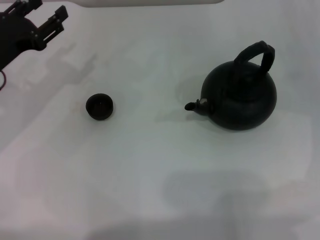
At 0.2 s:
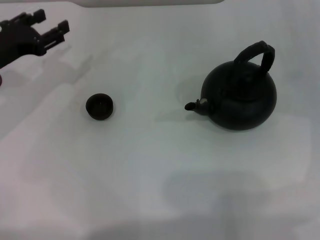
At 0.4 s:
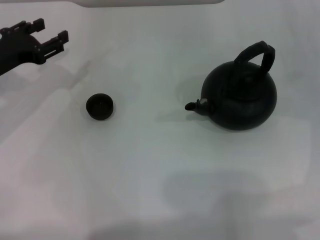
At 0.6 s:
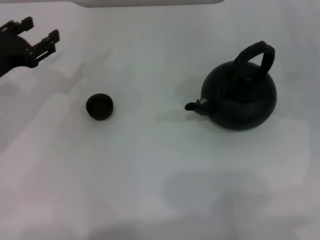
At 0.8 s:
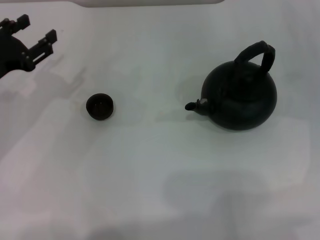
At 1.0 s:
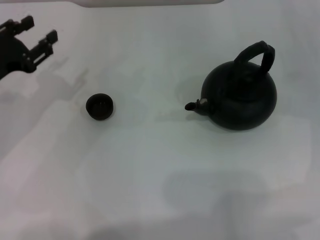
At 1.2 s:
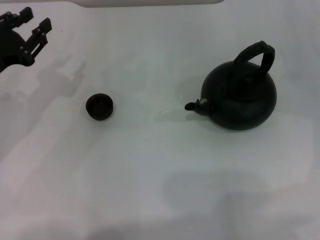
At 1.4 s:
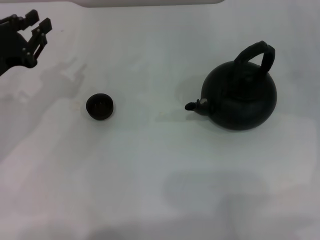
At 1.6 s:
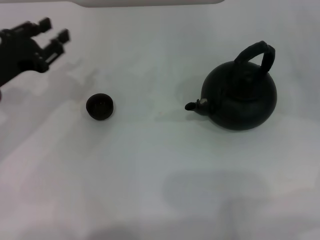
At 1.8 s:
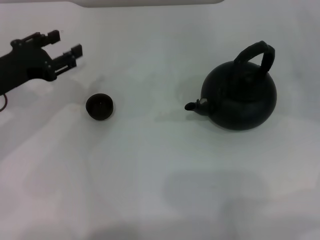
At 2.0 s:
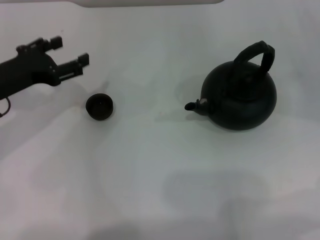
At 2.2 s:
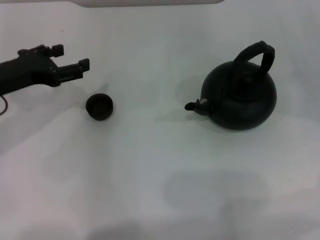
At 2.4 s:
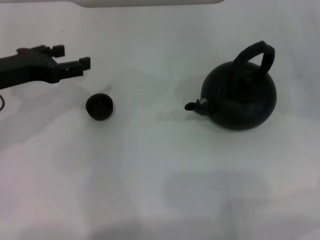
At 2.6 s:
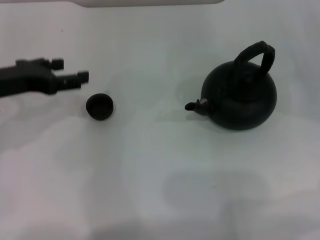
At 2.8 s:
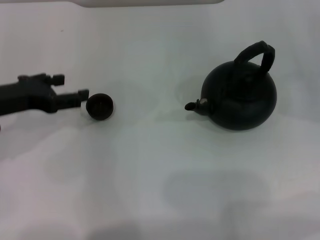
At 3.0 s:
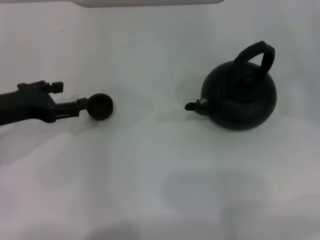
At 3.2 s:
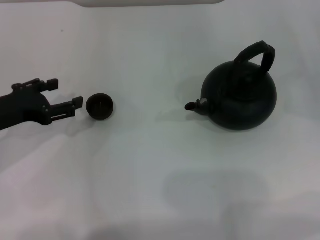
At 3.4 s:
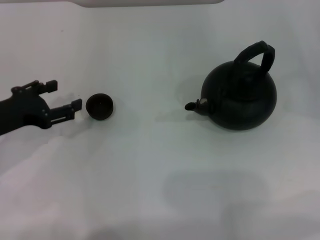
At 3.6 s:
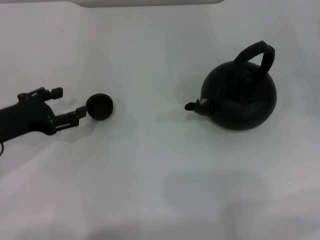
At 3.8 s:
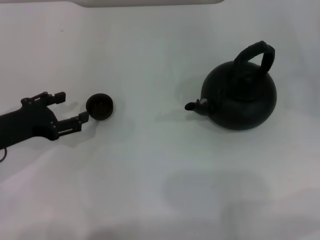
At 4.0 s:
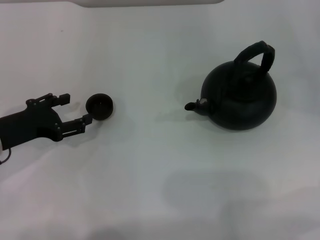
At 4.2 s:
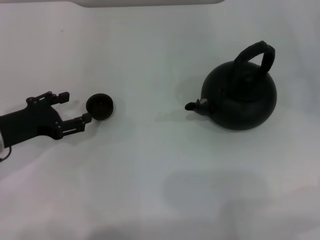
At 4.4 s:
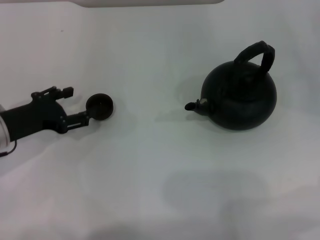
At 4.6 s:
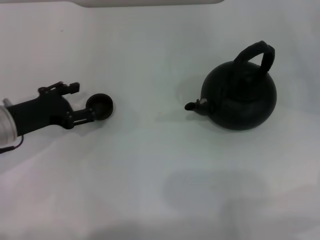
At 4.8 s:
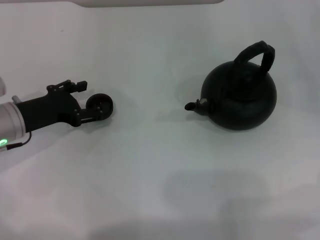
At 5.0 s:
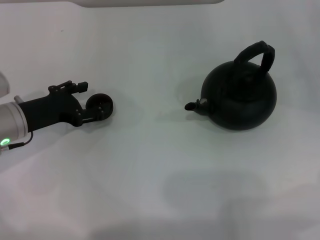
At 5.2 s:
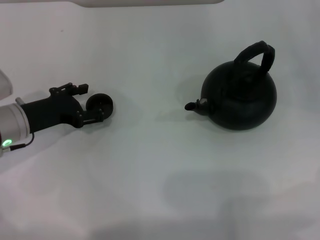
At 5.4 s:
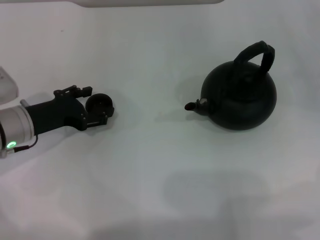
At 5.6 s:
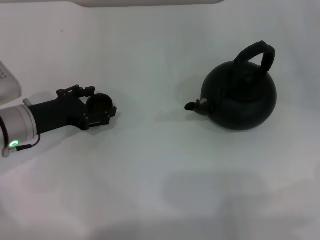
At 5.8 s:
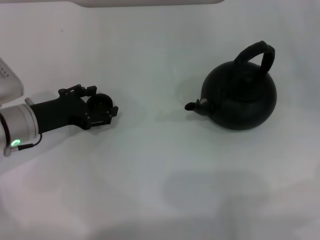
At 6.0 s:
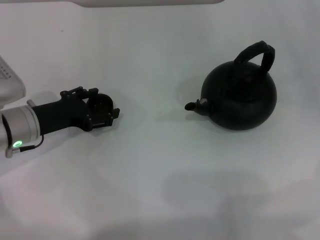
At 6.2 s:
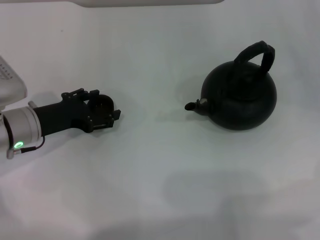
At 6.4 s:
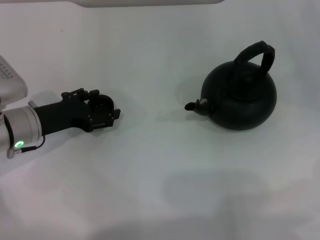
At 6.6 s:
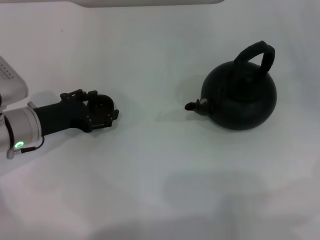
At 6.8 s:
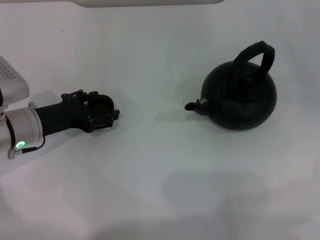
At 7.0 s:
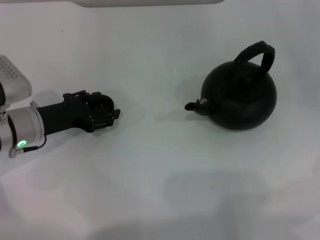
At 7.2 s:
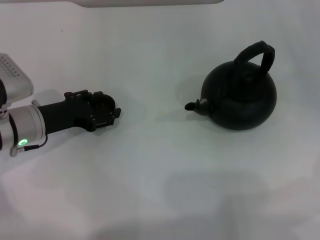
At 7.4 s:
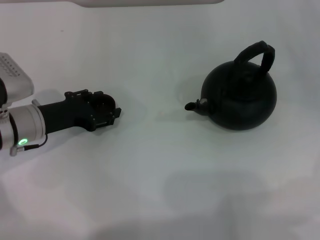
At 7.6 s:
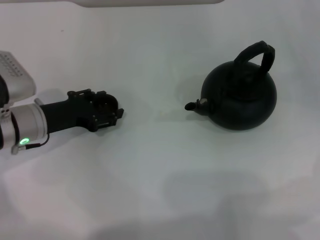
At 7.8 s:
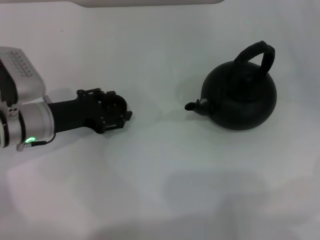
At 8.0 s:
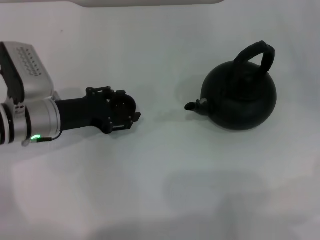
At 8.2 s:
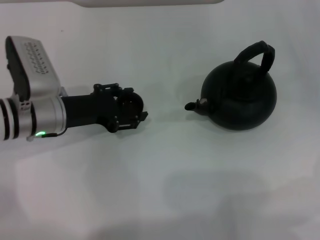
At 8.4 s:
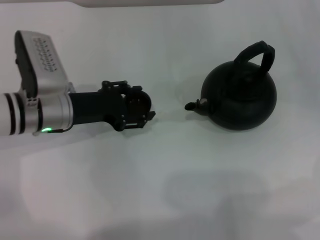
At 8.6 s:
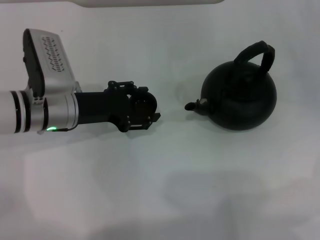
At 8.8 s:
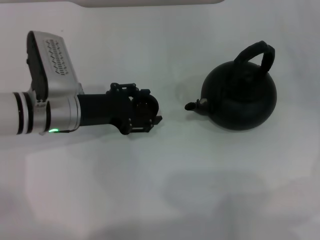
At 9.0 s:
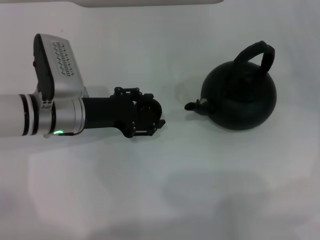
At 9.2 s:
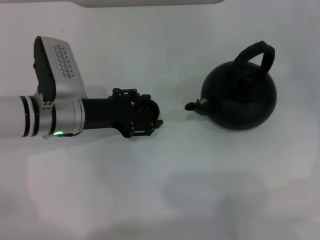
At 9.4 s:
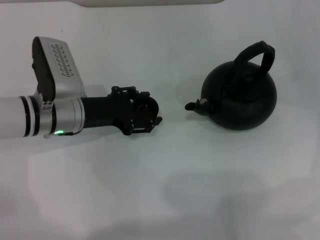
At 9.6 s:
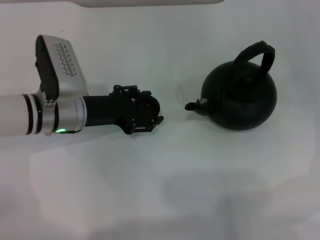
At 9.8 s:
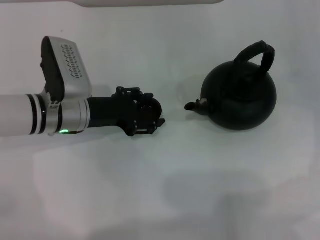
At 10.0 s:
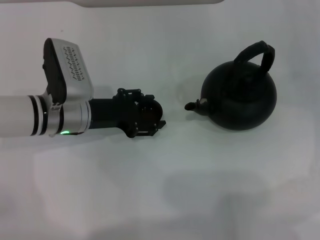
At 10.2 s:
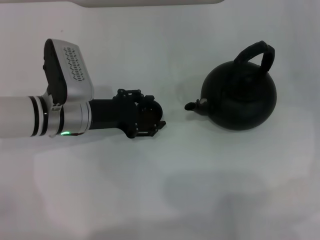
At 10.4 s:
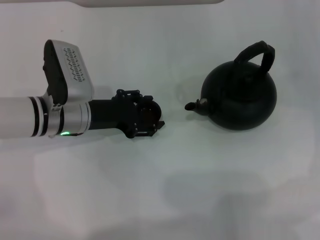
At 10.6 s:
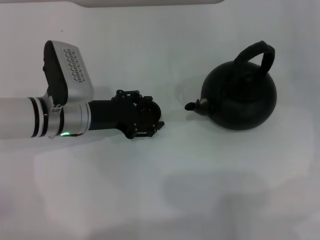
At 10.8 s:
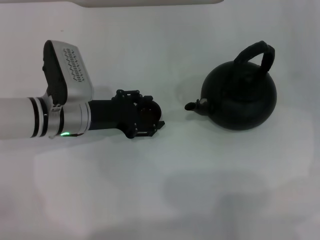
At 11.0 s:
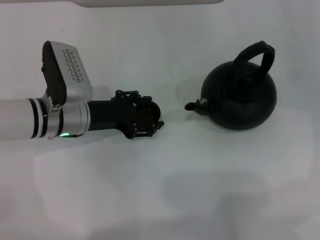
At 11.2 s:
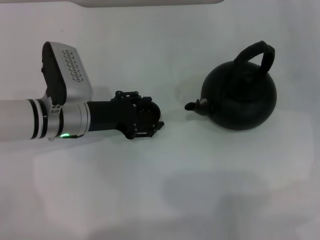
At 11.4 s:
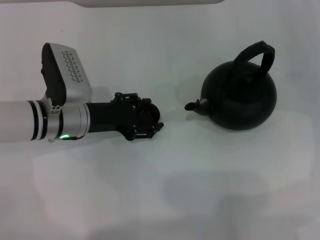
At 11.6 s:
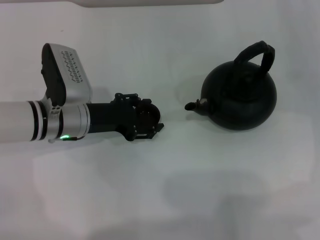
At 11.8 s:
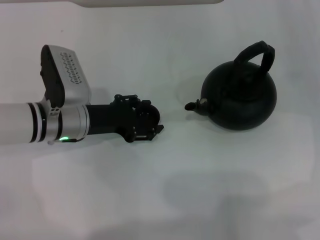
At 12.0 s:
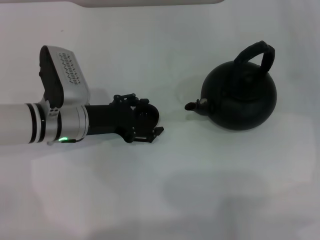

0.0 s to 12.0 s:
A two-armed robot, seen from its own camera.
Task of the whole recording: Grasp the handle of the teapot with one hand and pour tea into the teacup.
Step, 0.0 to 8.2 s: Pick up the teacup with the left gripper.
0.0 to 1.6 s: The left gripper closes.
1.6 to 3.0 s: The left gripper opens its fingers.
3.0 to 4.4 s: The left gripper travels downward by approximately 5 cm.
4.4 to 6.0 s: There are only small adjustments of the grippers.
6.0 to 7.6 s: The left gripper closes its fingers.
7.6 to 9.0 s: The left gripper shifts roughly 5 cm to the right.
9.0 to 10.4 s: The grippers make only small movements.
10.4 to 12.0 s: The two grippers keep their place.

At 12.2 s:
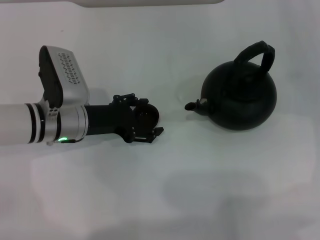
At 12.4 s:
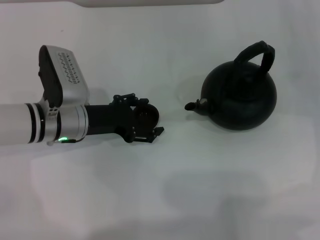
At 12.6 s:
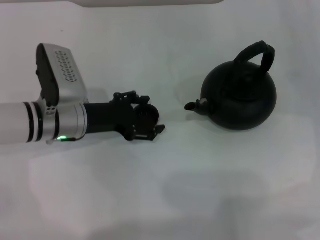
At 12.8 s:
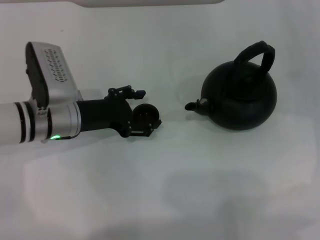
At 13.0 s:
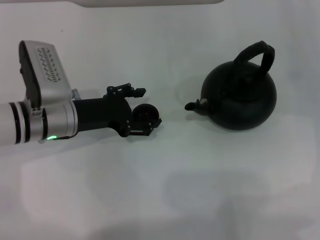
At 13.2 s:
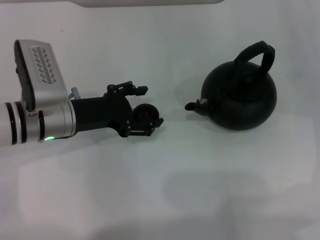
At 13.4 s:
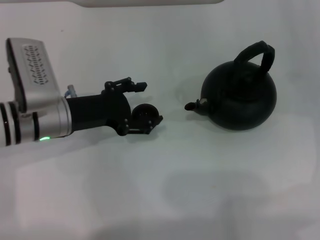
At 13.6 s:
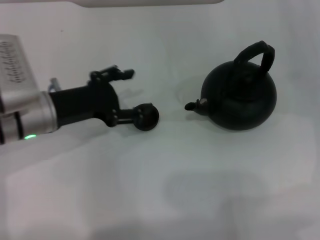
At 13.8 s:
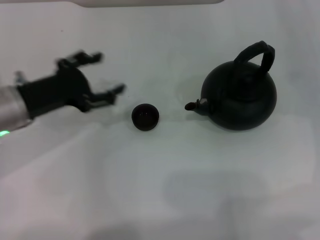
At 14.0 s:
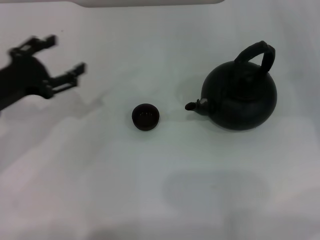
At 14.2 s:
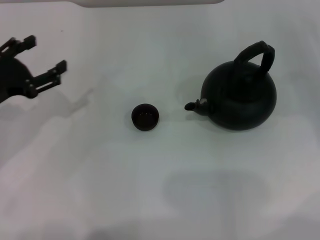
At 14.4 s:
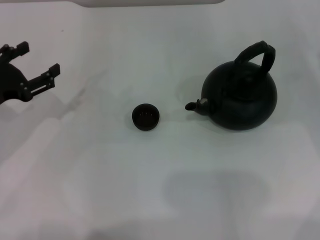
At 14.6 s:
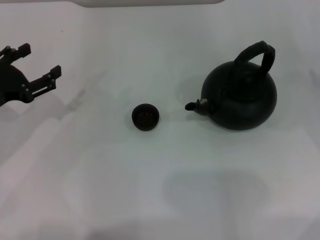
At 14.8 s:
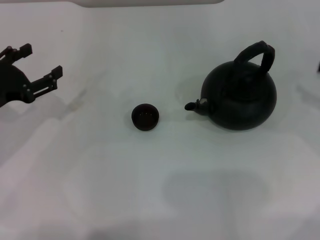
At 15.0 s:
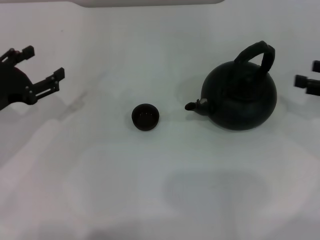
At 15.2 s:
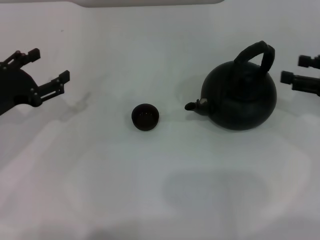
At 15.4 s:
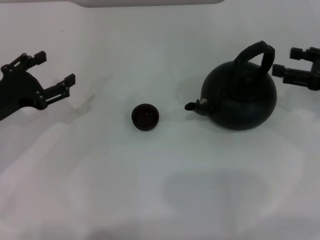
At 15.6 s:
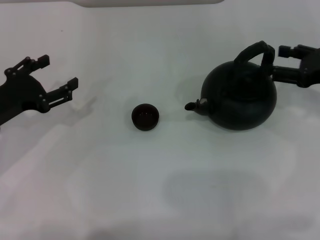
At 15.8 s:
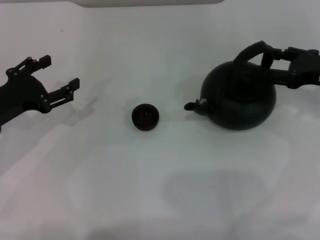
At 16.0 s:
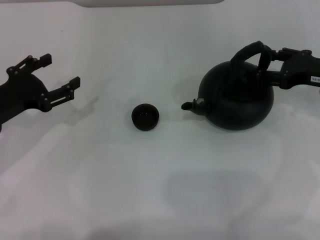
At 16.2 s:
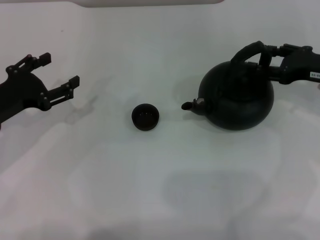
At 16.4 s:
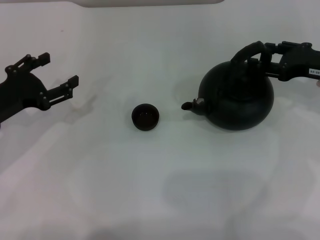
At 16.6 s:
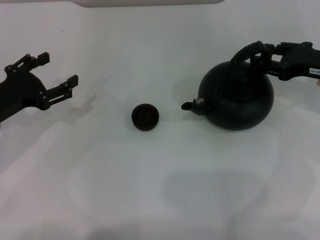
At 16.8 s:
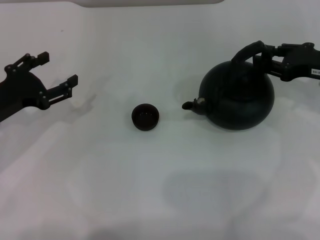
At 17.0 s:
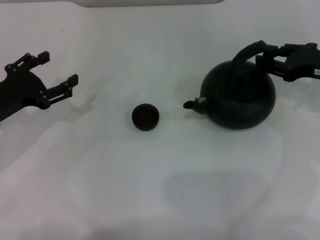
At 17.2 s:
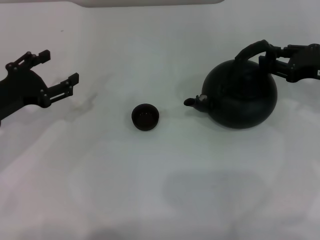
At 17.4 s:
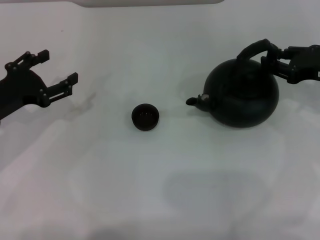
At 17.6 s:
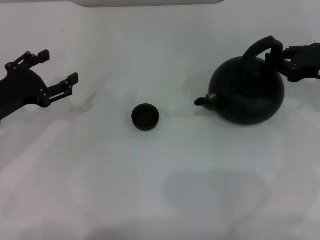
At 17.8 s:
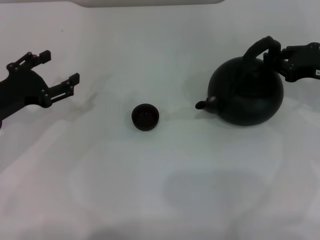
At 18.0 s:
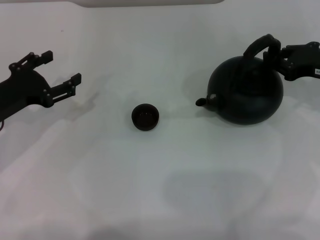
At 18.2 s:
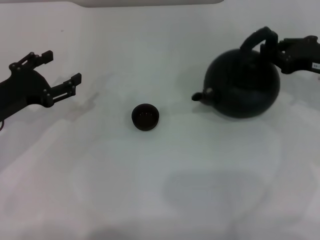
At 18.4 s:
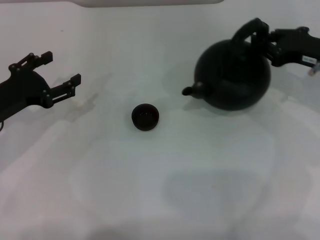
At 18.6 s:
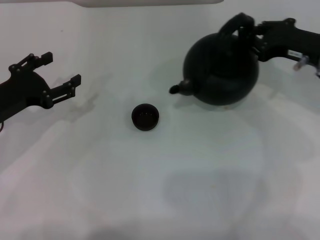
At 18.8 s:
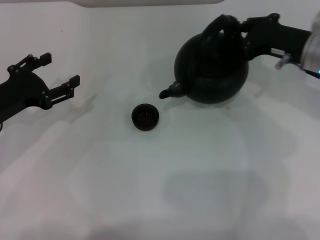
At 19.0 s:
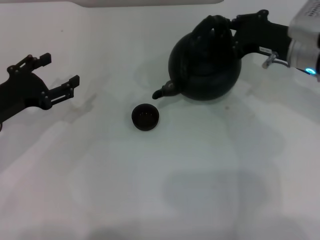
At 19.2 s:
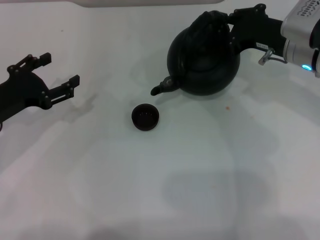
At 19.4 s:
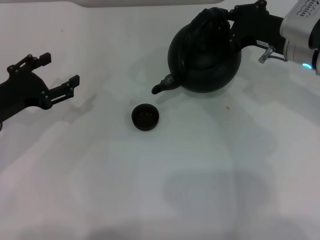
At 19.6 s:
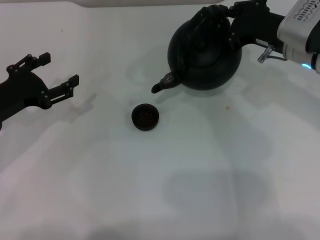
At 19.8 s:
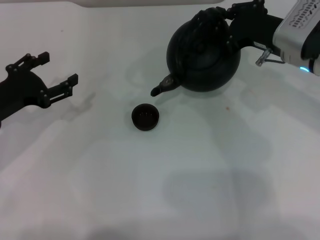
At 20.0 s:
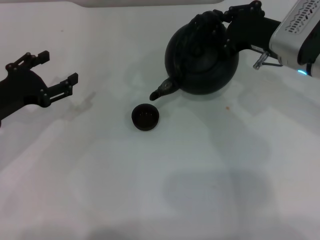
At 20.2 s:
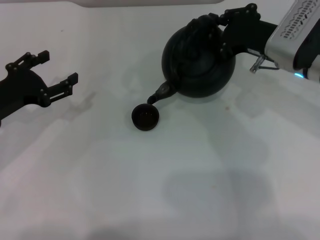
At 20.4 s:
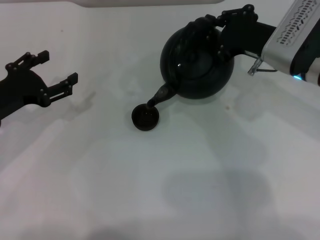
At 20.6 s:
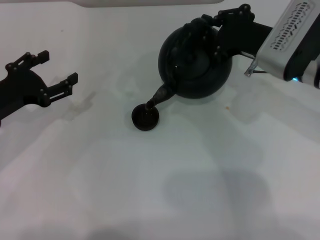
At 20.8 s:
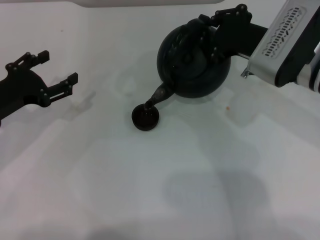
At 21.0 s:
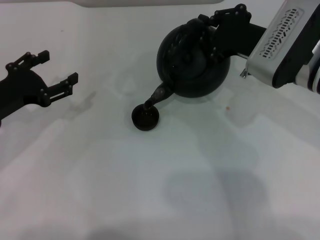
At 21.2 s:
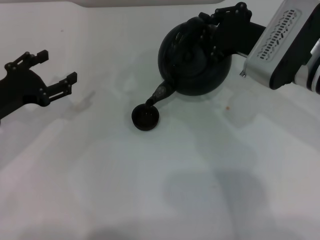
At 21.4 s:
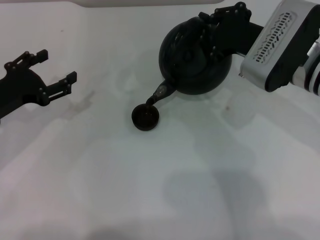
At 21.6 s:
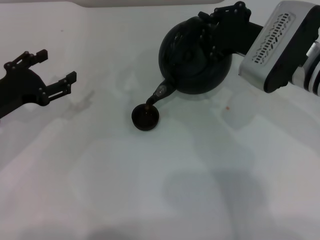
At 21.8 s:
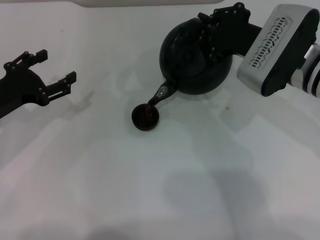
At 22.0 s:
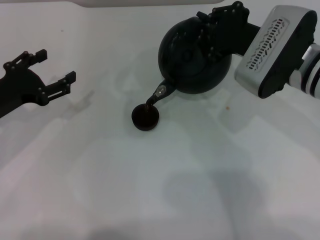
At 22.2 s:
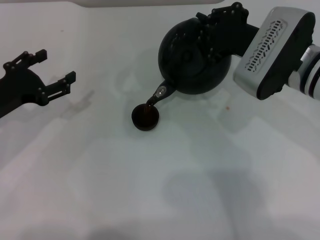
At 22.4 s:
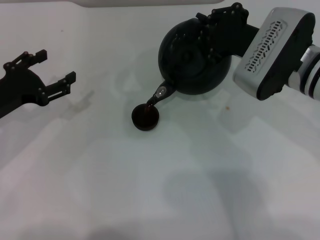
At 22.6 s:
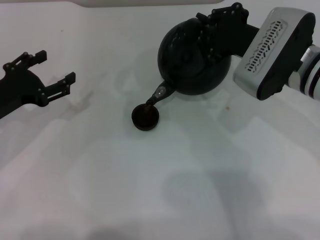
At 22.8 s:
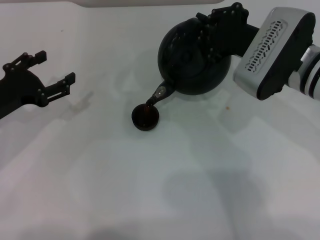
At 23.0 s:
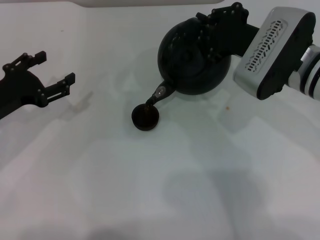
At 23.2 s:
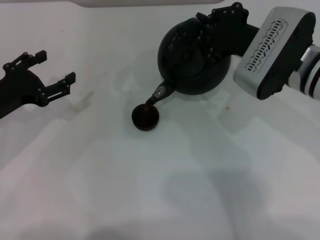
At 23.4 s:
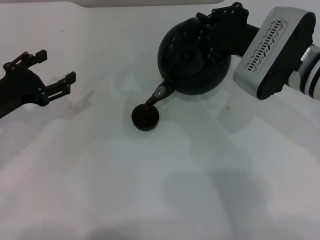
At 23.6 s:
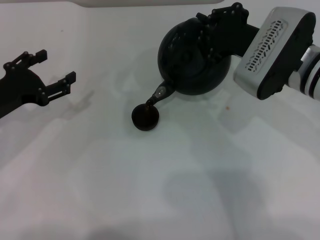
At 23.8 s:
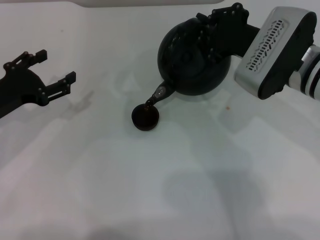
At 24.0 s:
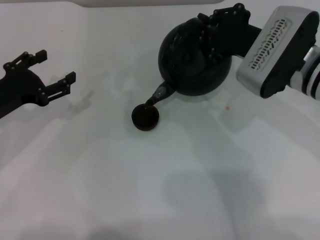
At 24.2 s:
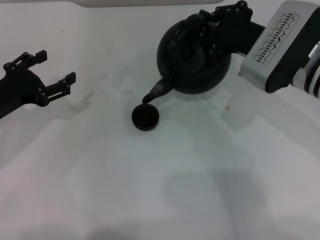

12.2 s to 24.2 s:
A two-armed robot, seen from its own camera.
Task of the whole recording: Grasp the handle of the teapot with one hand and pour tea into the teacup.
Step, 13.2 to 19.8 s: Pick up the teapot with the right gripper.
12.2 to 13.8 s: The left gripper is displaced to the left and upward by about 10 cm.
13.8 to 15.2 s: The left gripper moves to the left, approximately 5 cm. The right gripper shifts by some 5 cm.
15.2 to 16.6 s: The right gripper changes place by about 5 cm, and closes its fingers.
16.6 to 18.2 s: The right gripper closes its fingers.
18.2 to 19.8 s: The right gripper is displaced to the left by approximately 10 cm.
19.8 to 24.2 s: There are only small adjustments of the grippers.
